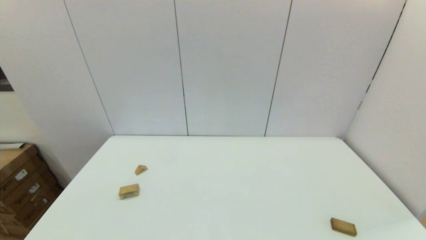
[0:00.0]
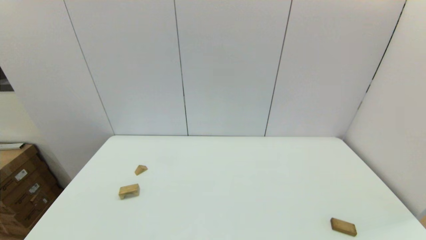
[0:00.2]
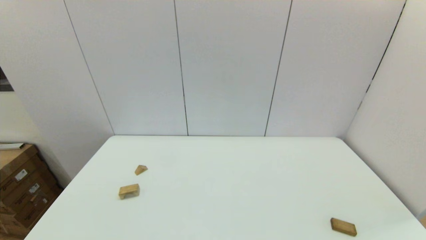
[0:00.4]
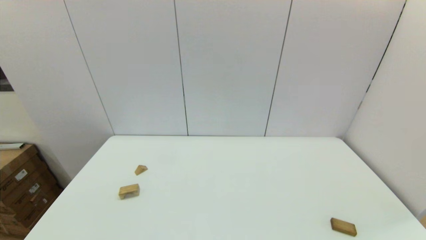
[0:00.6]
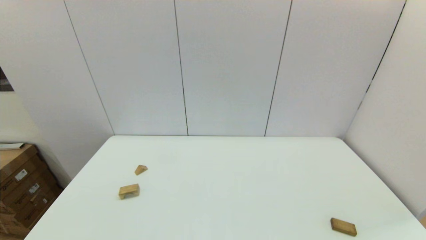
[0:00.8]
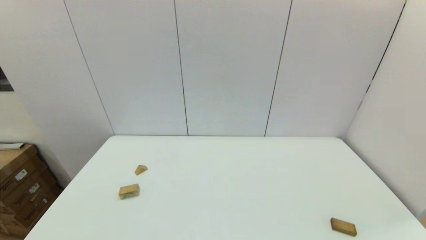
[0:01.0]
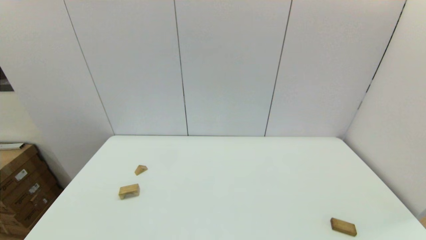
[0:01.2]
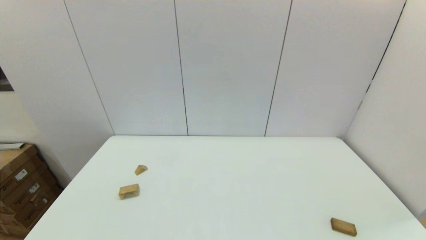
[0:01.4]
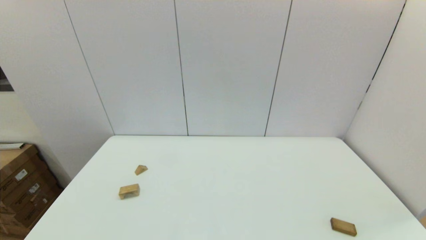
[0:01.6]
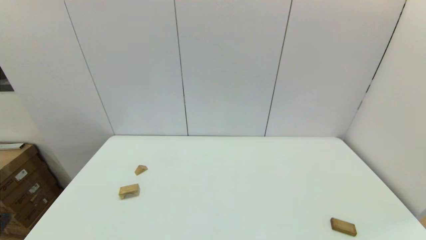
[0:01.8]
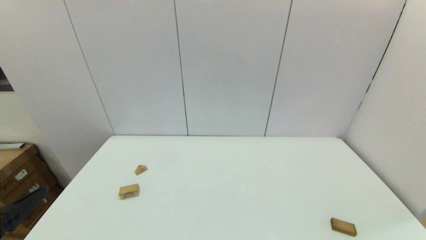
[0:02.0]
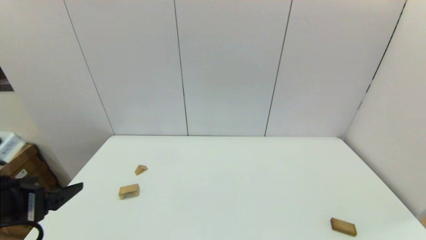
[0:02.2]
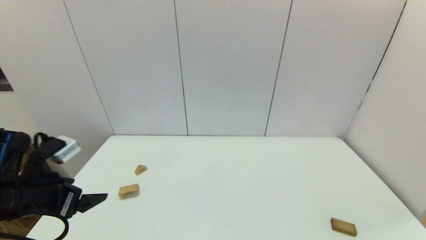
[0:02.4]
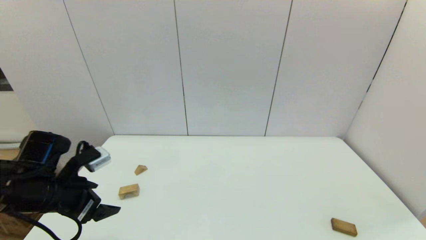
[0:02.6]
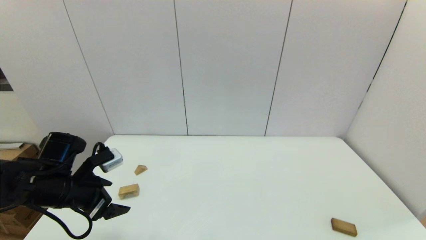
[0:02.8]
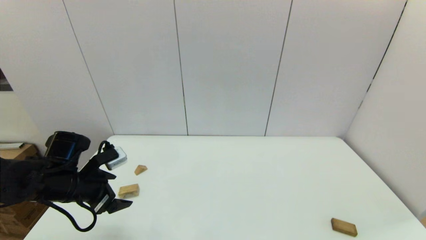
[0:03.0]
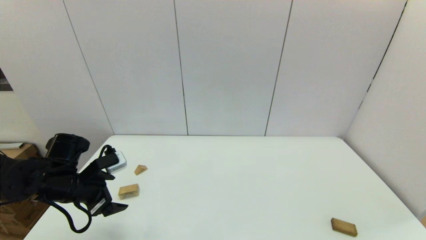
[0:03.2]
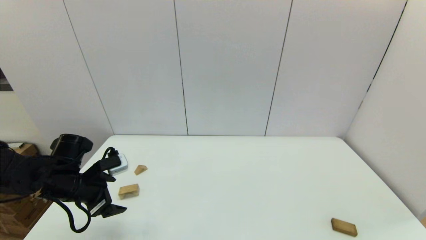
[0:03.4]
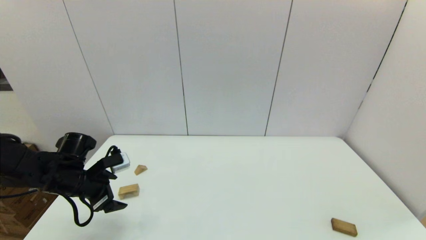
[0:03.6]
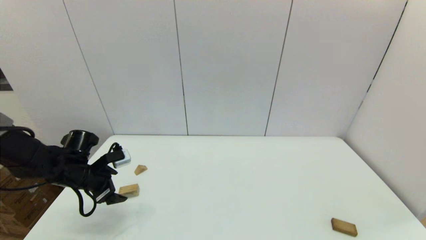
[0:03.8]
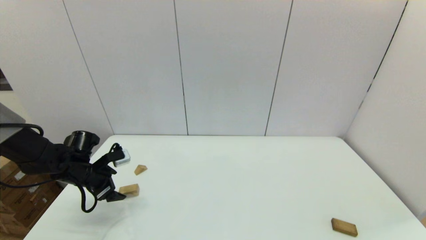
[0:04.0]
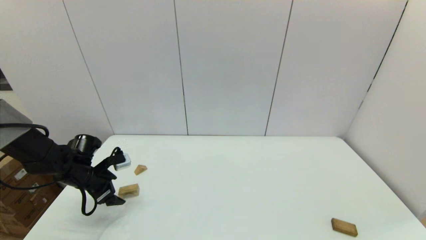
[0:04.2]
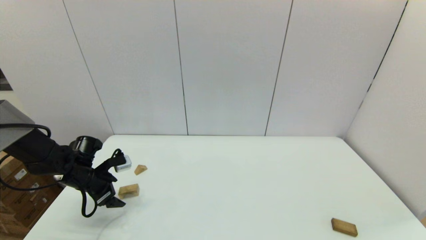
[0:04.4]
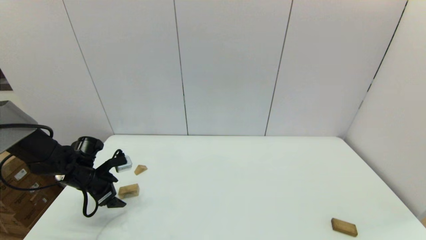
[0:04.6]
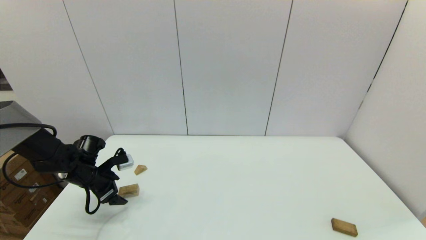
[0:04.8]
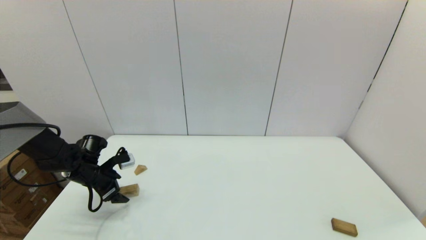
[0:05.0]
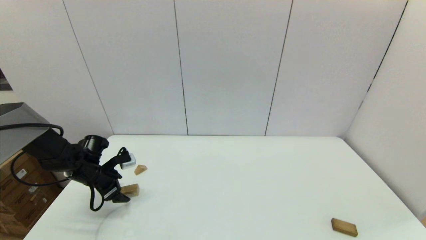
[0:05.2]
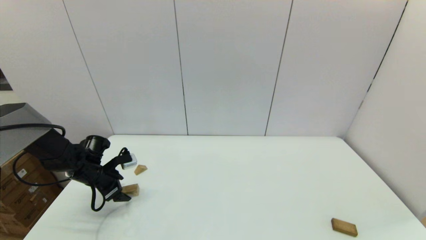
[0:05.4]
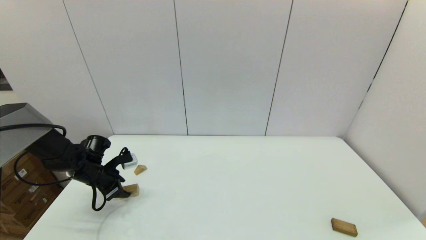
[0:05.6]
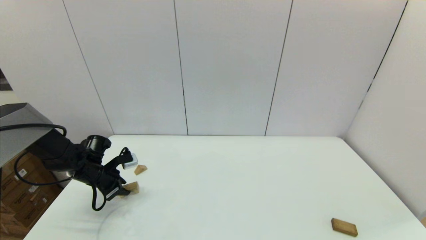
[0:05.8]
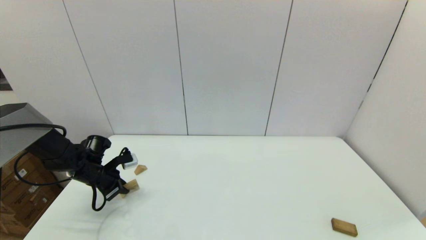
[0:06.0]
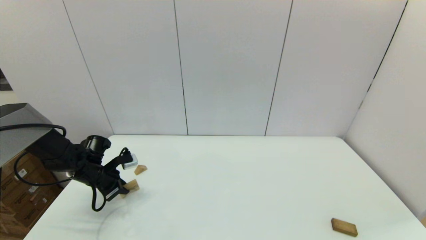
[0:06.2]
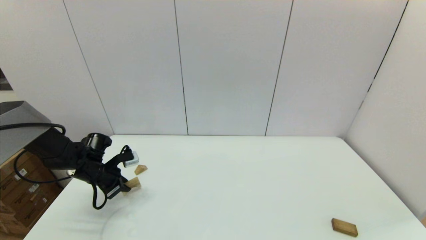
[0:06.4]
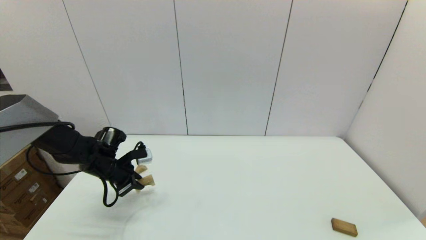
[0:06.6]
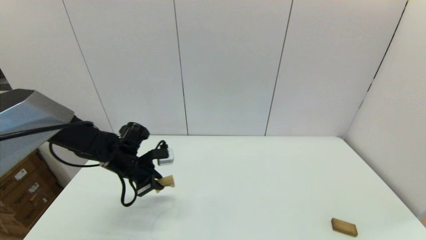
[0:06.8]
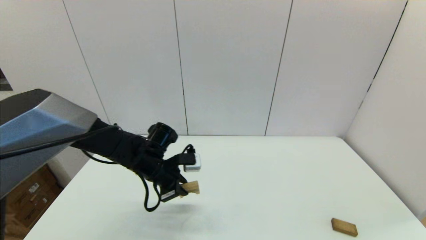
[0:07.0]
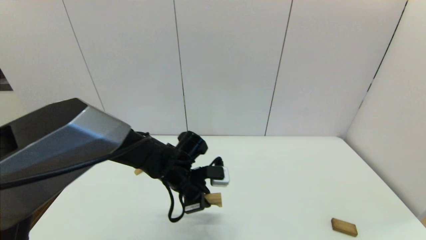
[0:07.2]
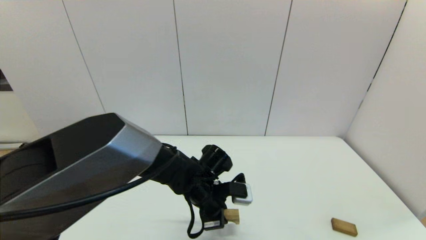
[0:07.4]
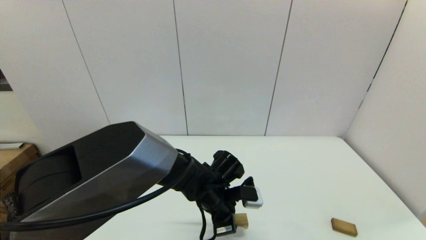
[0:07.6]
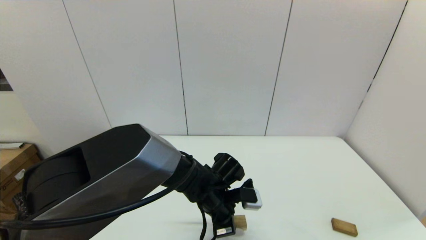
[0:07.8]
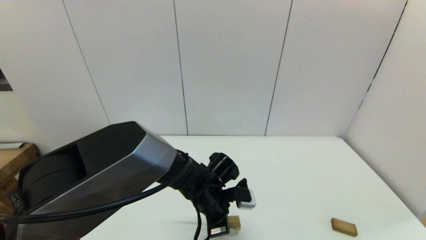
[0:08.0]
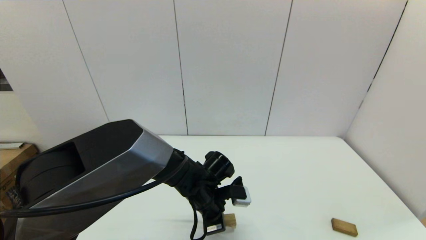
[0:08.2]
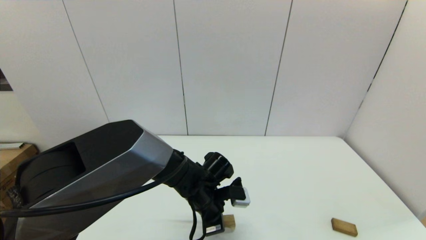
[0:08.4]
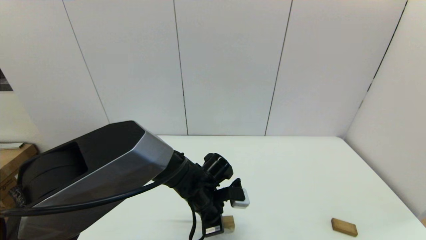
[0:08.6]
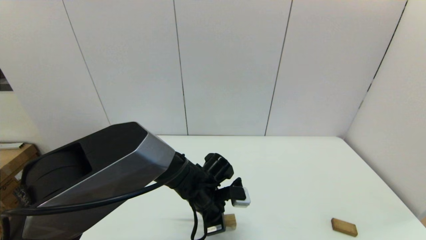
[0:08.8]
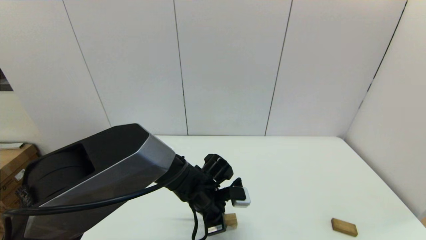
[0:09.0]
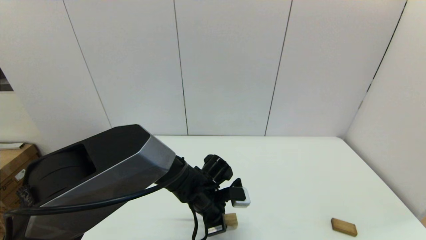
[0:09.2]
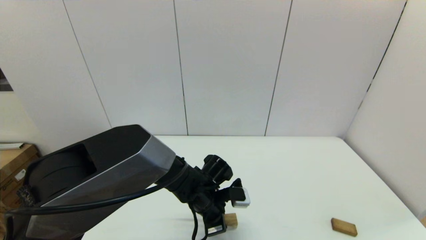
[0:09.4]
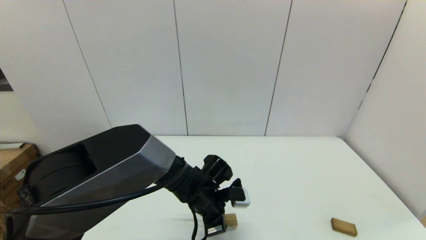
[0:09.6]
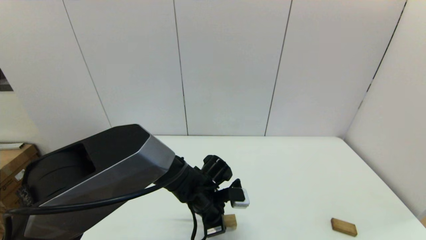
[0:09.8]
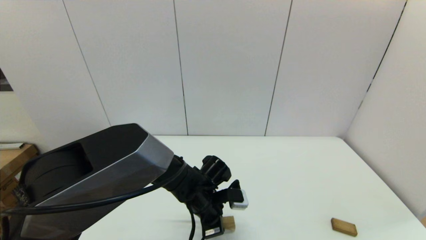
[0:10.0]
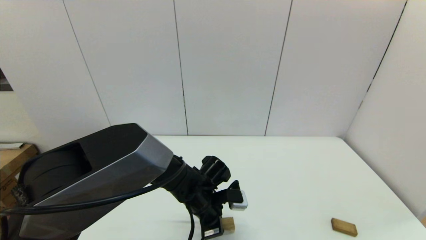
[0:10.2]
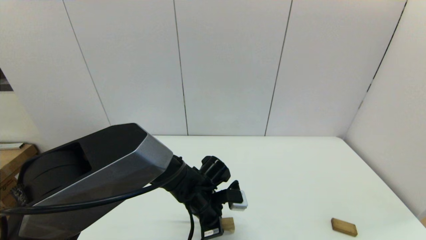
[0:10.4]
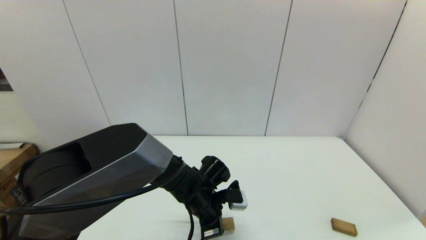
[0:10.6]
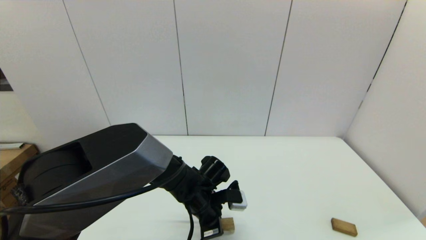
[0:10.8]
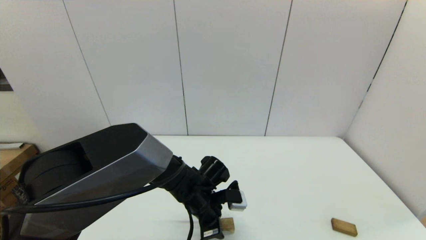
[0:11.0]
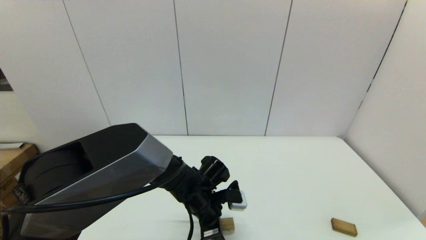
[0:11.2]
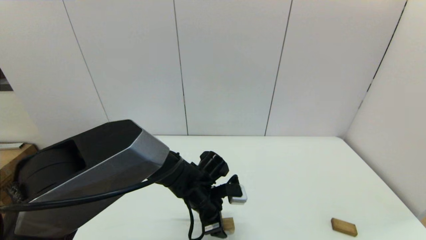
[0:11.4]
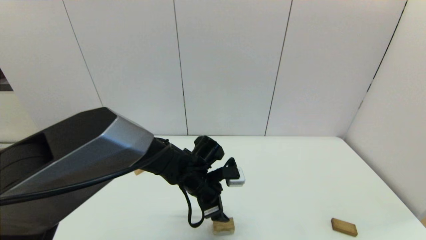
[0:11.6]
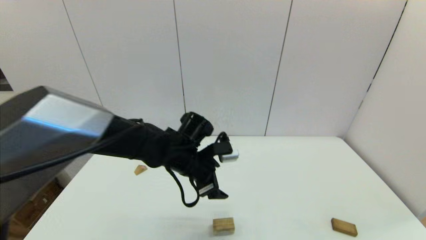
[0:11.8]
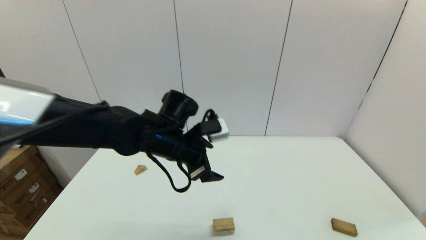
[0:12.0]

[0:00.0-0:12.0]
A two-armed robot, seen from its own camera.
Task of the whole recording: place the arched building blocks in the center of the table, set up the rectangular building blocks, and then set up the triangular building blocks.
Step, 0:01.8 to 0:05.8: Grasp the arch-shaped block with the left gripper.
Step, 0:06.0 to 0:10.8: Place the arch-shaped block in the center of view with the left gripper.
0:01.6 to 0:03.0: The left gripper travels forward by about 30 cm.
0:03.0 to 0:04.4: The left gripper moves forward and downward, about 10 cm.
0:04.4 to 0:06.0: The left gripper closes.
0:06.0 to 0:07.6: The left gripper is displaced to the right by about 35 cm.
0:07.6 to 0:09.0: The grippers move only a little.
0:09.0 to 0:10.4: Both grippers stay put.
0:10.4 to 0:12.0: The left gripper shifts some 20 cm upward, and opens its fingers.

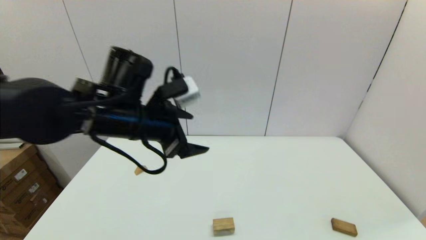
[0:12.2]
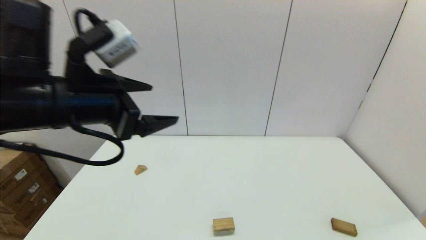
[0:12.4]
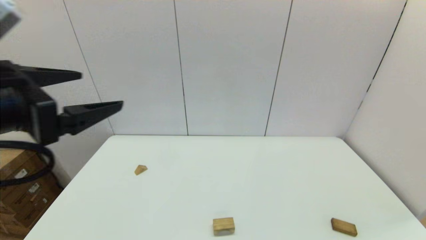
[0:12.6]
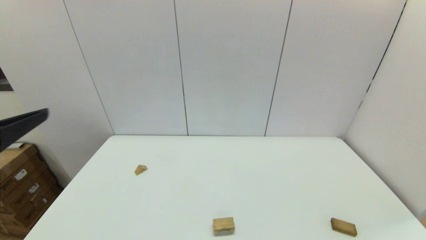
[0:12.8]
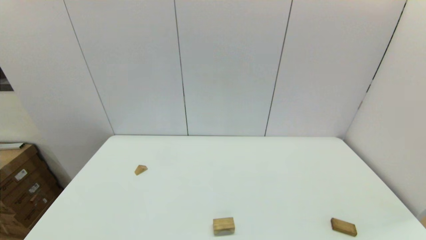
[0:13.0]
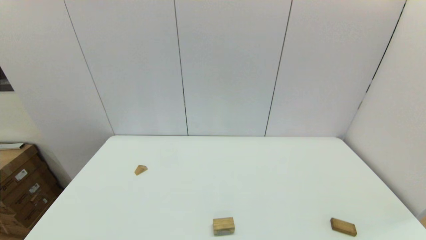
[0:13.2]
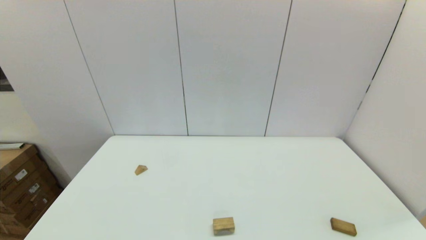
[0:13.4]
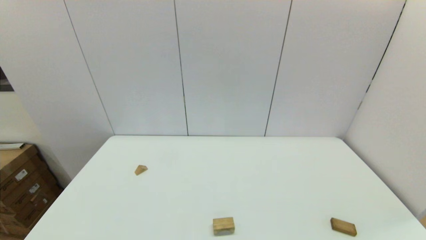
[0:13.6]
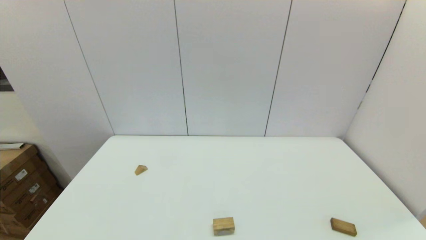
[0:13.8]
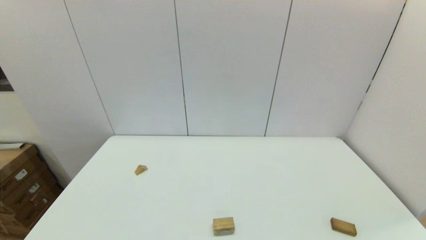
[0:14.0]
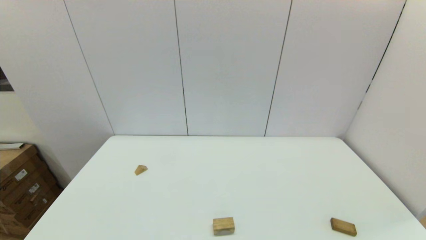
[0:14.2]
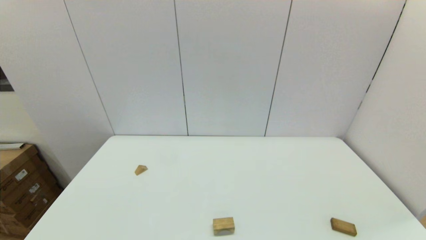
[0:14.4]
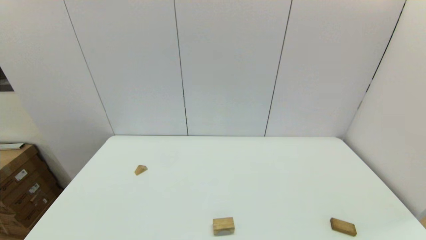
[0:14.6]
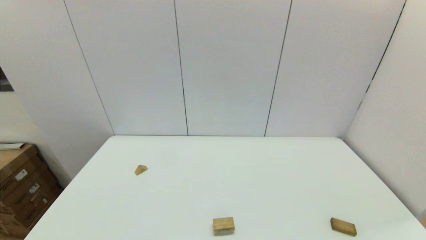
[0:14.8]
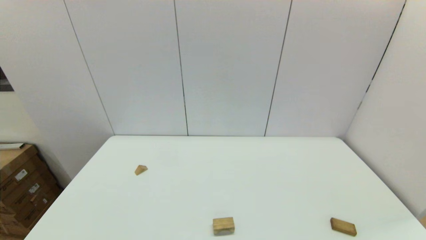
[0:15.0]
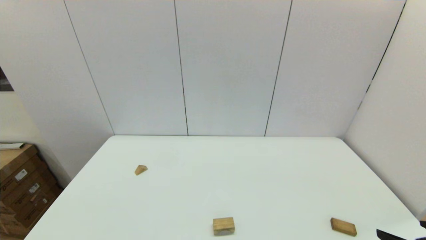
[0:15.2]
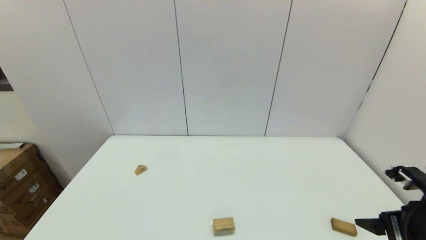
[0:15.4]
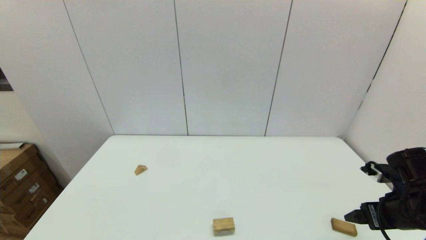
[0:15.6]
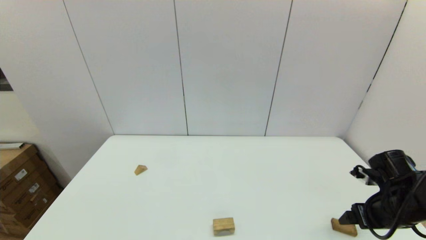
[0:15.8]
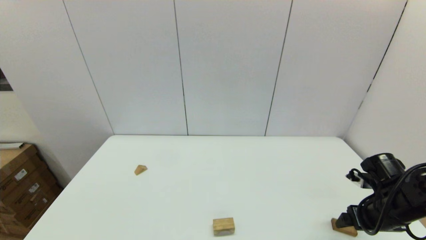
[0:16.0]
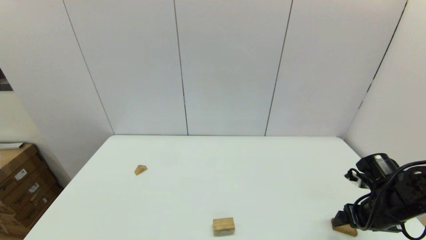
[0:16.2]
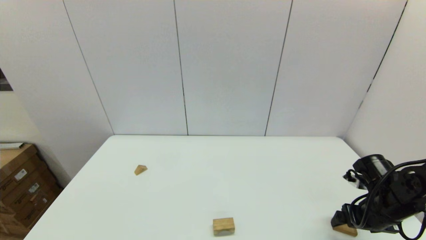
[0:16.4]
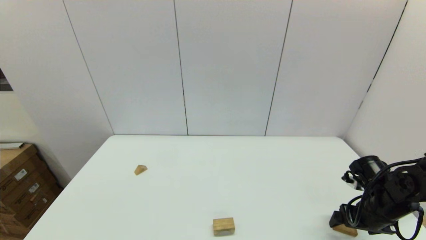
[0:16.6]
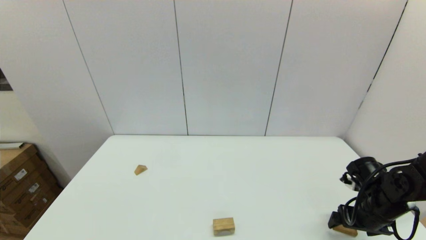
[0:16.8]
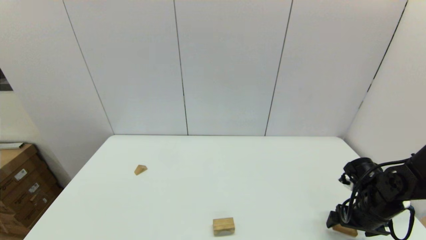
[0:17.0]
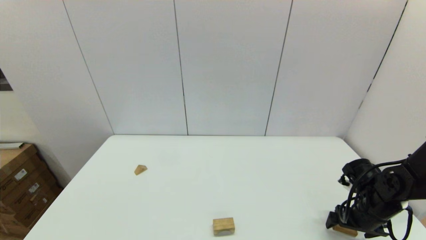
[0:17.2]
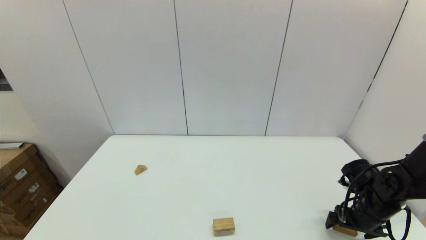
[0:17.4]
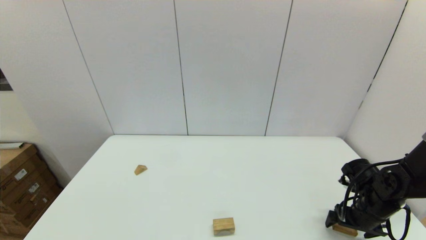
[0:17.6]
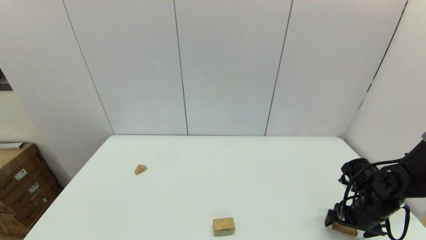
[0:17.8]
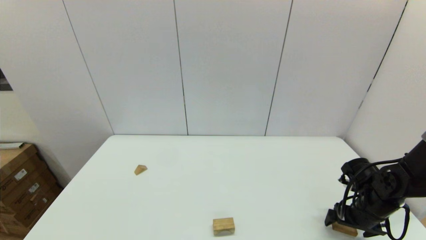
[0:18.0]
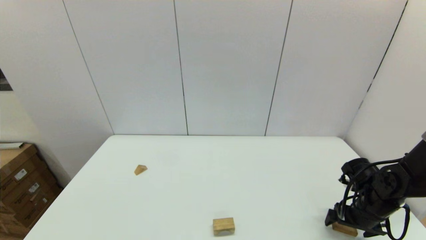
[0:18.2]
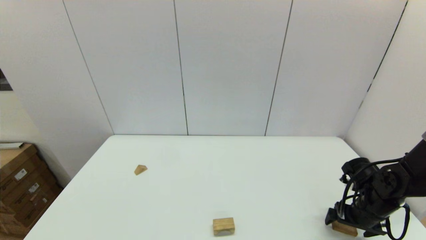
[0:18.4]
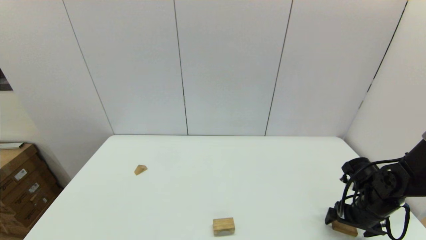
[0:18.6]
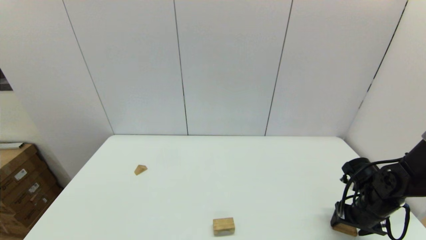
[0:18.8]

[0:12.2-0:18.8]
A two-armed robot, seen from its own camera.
Task of the whole recording: place the arched building blocks in the center of the table, set up the rectangular building blocks, and then set up the triangular building blocks.
Step, 0:12.2 to 0:18.8: Grasp the box-shaped block with the right gripper.
0:12.2 to 0:13.8: The left gripper heads backward, to the left and downward, covering about 35 cm.
0:13.8 to 0:15.4: The right gripper heads forward, covering roughly 20 cm.
0:15.4 to 0:17.2: The right gripper heads downward and forward, covering approximately 15 cm.
0:17.2 to 0:18.8: The right gripper closes up.
